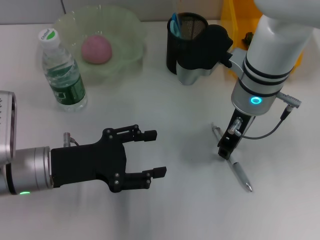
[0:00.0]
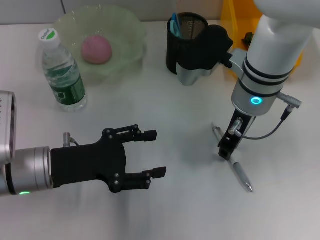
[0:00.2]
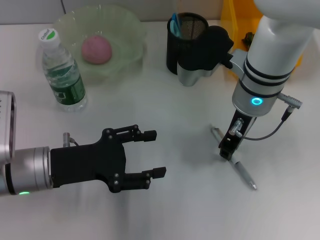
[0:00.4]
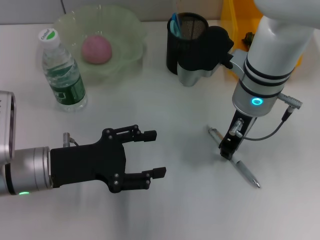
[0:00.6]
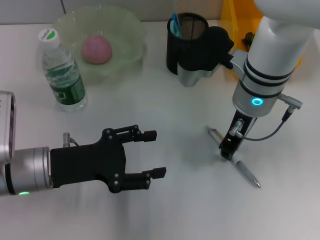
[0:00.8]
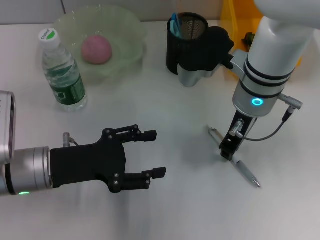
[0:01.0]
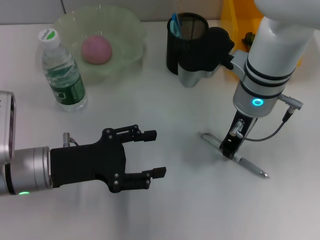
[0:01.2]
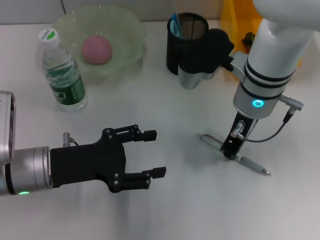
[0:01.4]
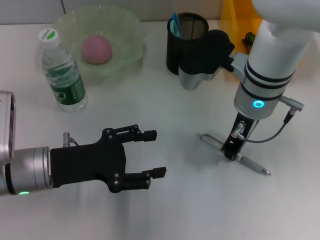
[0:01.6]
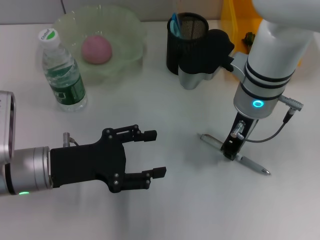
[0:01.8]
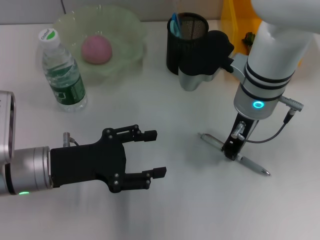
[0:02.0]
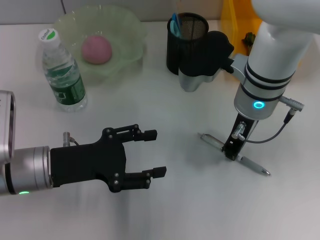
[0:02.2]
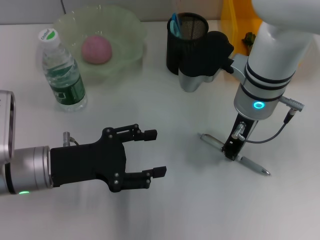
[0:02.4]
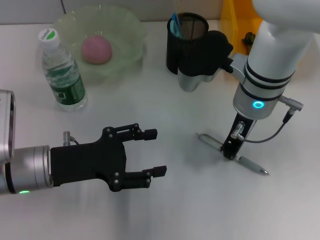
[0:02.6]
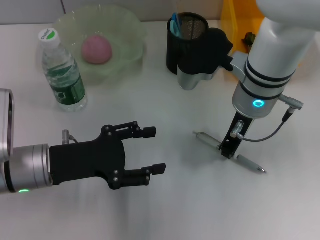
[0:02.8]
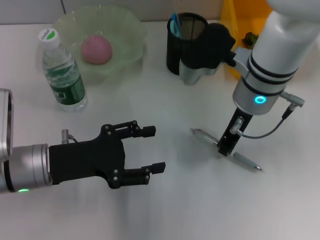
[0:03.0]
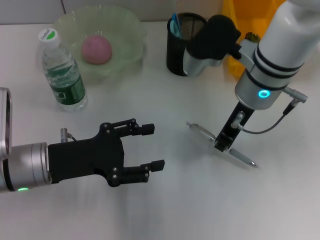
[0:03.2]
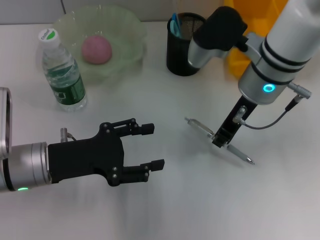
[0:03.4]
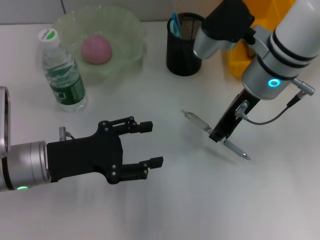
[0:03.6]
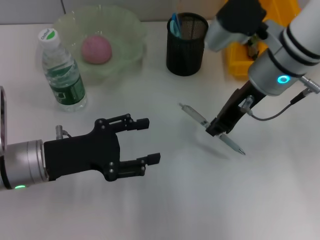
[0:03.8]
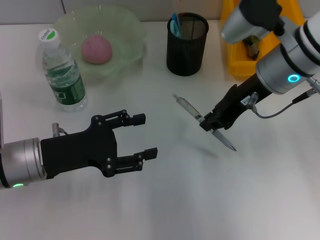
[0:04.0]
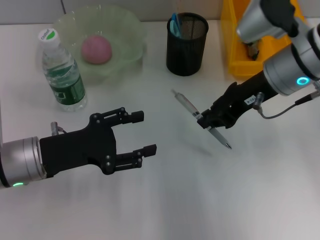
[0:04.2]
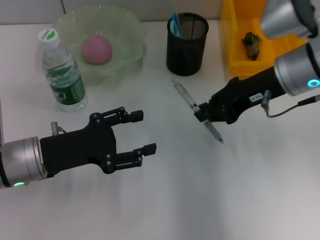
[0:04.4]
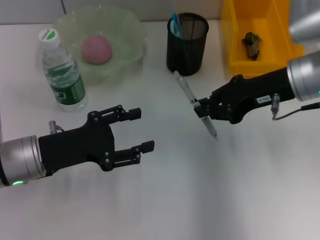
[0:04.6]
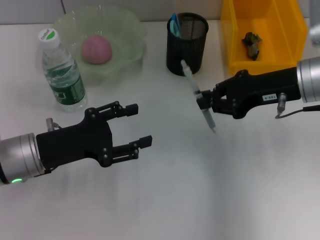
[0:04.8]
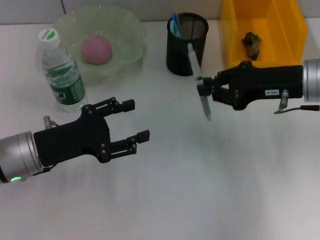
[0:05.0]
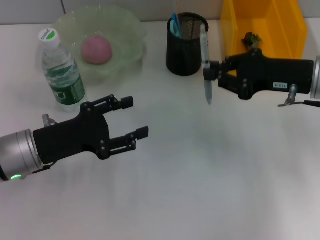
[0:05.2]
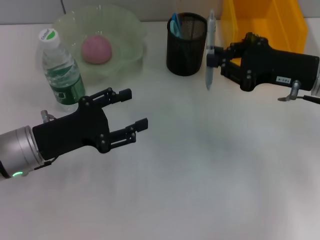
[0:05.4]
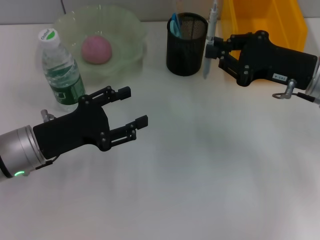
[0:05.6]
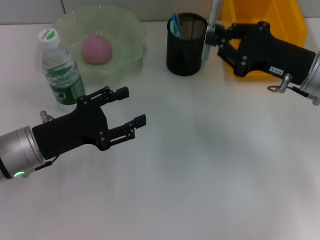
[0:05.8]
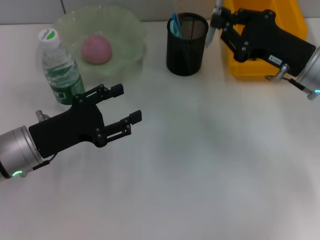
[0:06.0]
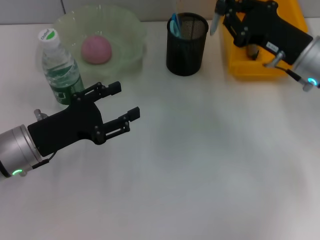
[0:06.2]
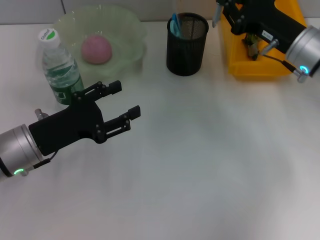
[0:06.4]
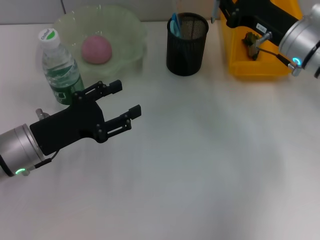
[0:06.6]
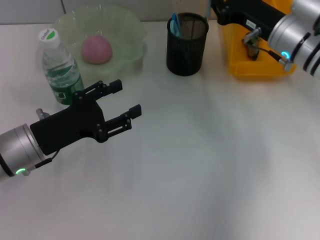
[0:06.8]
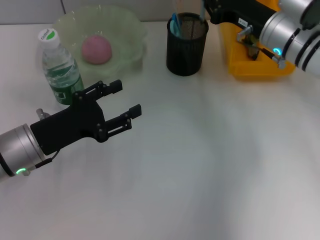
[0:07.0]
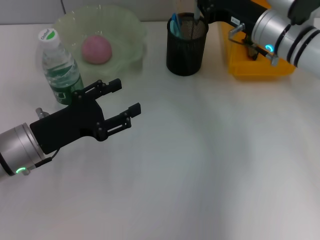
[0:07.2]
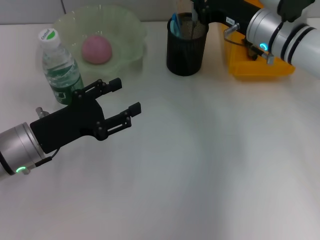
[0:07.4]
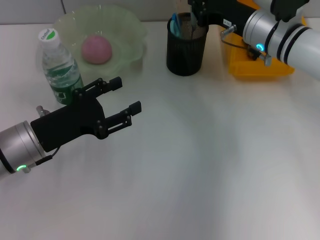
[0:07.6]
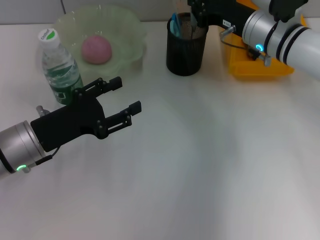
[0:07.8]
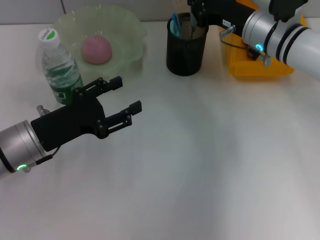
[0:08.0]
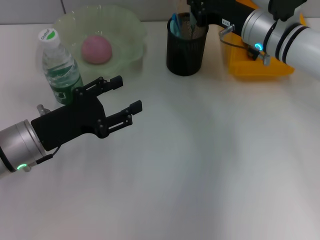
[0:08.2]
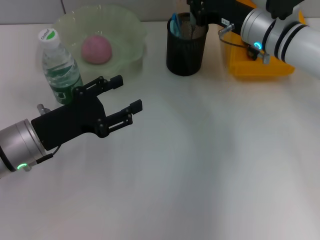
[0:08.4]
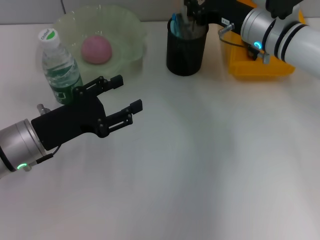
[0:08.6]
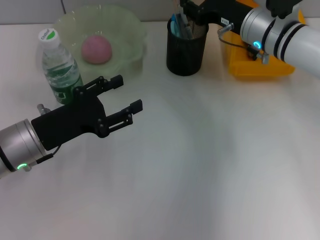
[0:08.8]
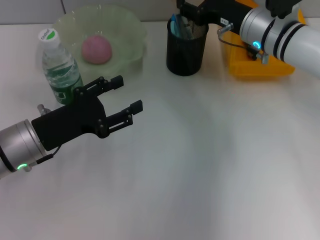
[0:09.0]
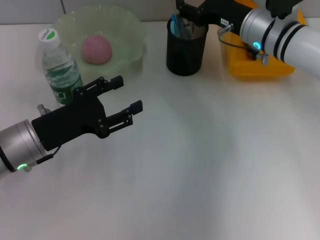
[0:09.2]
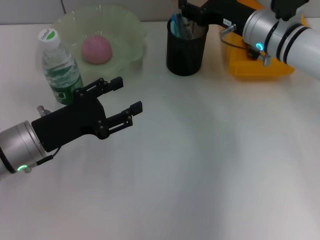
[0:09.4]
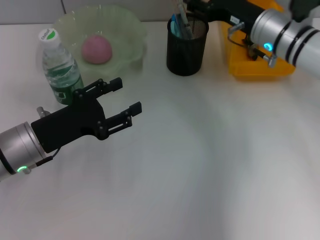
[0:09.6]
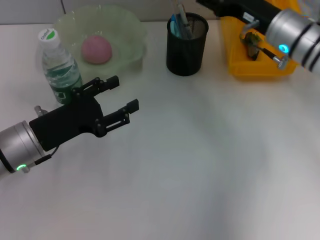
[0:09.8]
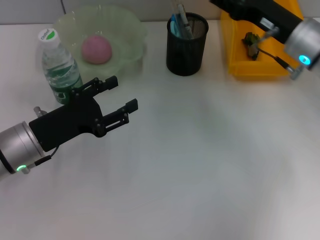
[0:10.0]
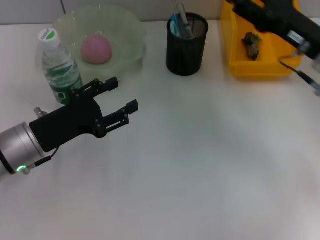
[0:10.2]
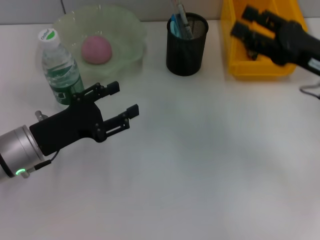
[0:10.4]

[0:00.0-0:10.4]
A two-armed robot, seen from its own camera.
Step, 0:00.2 to 0:08.8: Place the gray spring-action pen into the pen holder with the right hand.
0:00.0 to 0:01.4: The two grippers keep their place.
0:01.4 to 0:03.0: The grippers move only a little.
0:03.0 to 0:04.4: The right gripper travels to the right by about 10 cm.
0:04.4 to 0:06.0: The right gripper moves downward, approximately 5 cm.
0:06.0 to 0:07.4: The right gripper shifts roughly 10 cm forward and to the left.
0:07.4 to 0:09.0: The right gripper opens its fingers.
0:09.0 to 0:10.4: The right gripper moves backward and to the right, some 15 cm.

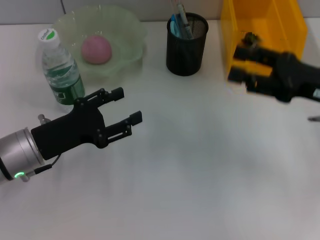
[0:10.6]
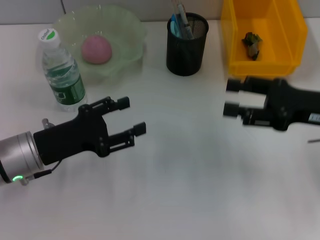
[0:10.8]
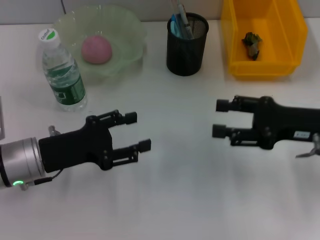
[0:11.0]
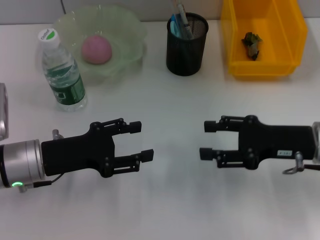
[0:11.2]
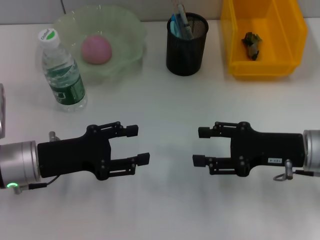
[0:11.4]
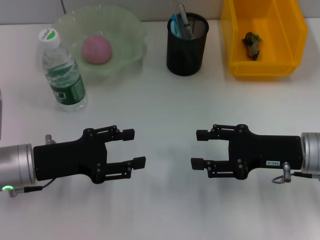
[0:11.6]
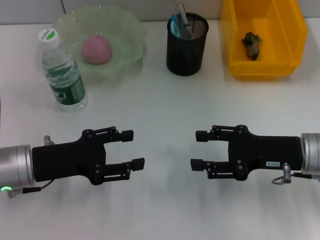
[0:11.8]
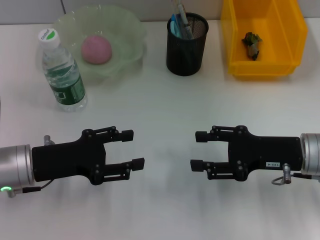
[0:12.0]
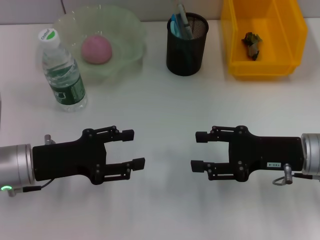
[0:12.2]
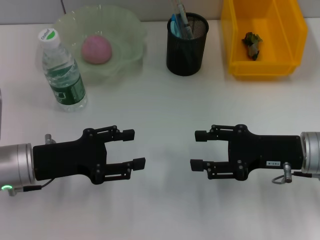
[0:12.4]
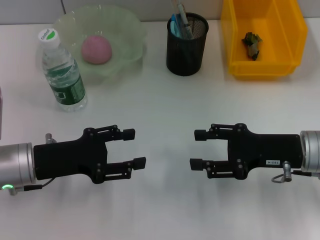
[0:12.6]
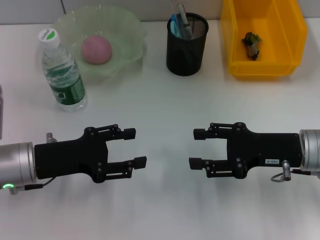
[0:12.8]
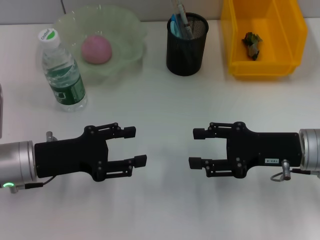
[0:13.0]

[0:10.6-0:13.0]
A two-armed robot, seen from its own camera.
0:10.6 to 0:11.8: The right gripper heads downward, covering approximately 5 cm.
0:11.8 to 0:13.0: The two grippers keep their place.

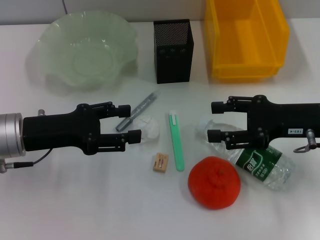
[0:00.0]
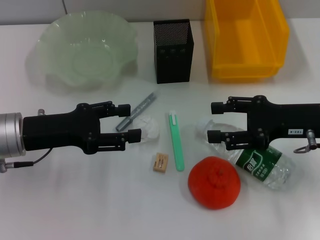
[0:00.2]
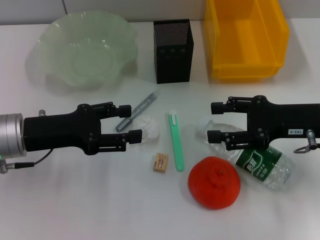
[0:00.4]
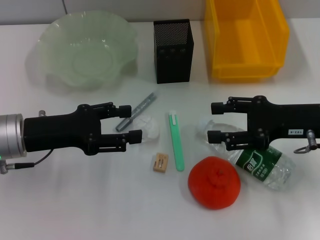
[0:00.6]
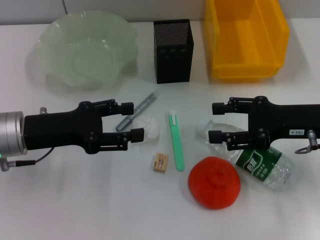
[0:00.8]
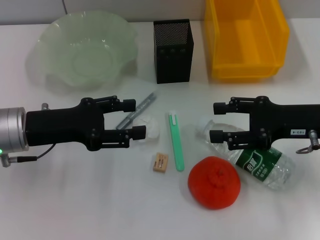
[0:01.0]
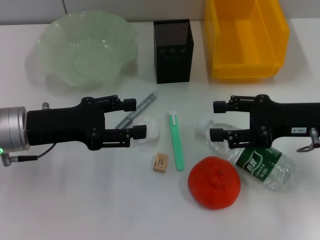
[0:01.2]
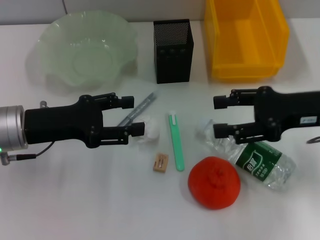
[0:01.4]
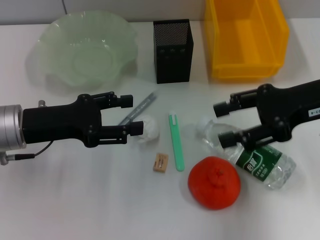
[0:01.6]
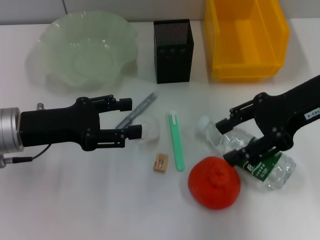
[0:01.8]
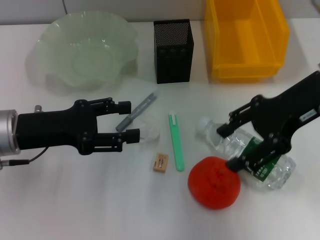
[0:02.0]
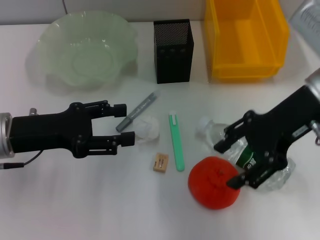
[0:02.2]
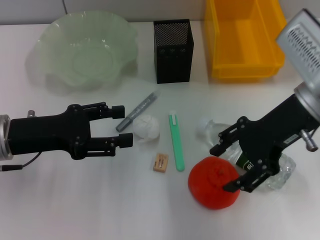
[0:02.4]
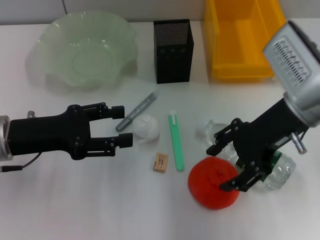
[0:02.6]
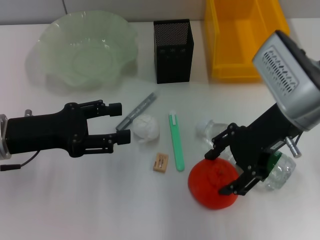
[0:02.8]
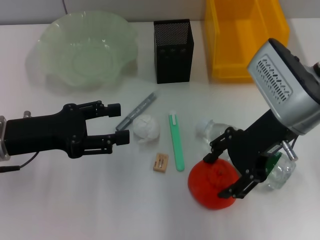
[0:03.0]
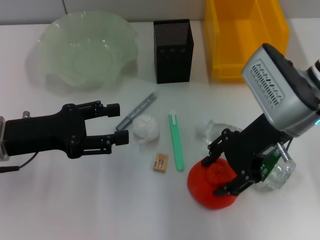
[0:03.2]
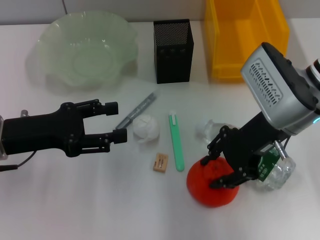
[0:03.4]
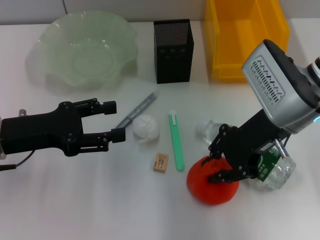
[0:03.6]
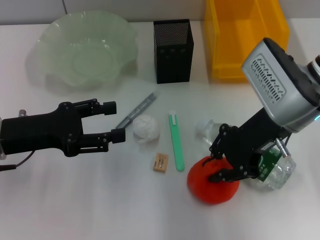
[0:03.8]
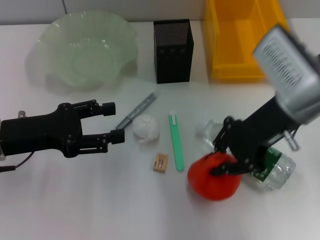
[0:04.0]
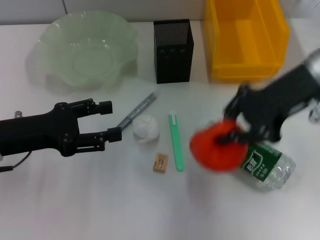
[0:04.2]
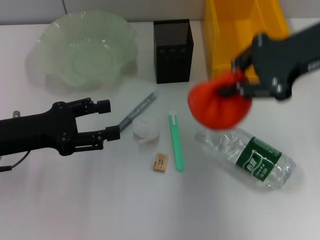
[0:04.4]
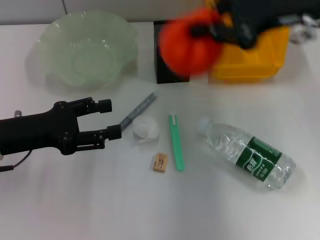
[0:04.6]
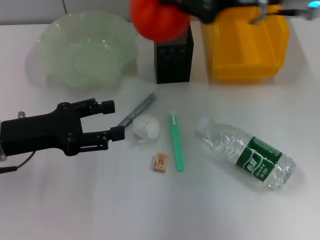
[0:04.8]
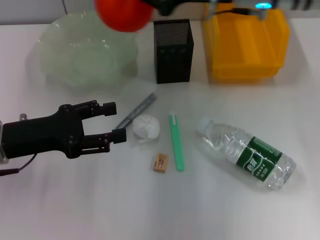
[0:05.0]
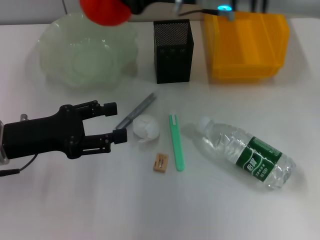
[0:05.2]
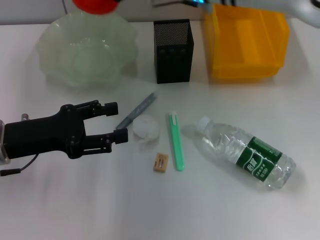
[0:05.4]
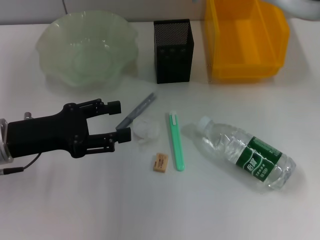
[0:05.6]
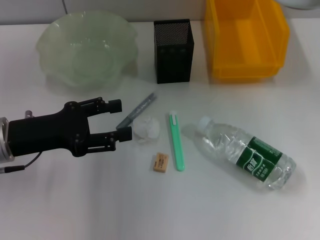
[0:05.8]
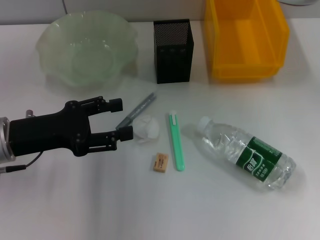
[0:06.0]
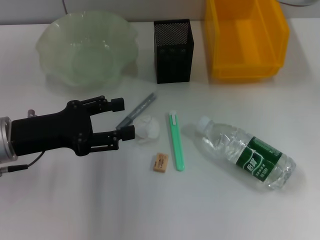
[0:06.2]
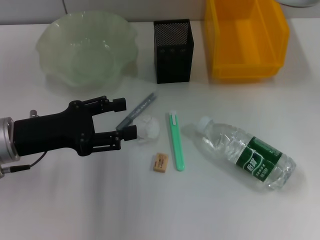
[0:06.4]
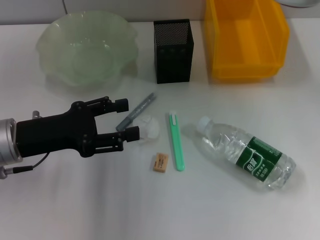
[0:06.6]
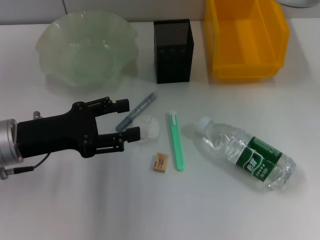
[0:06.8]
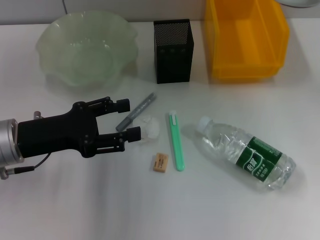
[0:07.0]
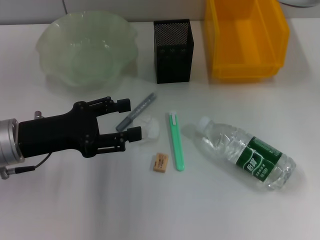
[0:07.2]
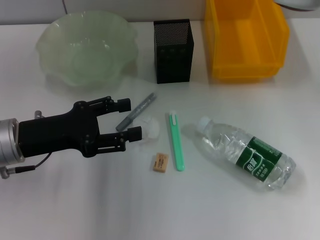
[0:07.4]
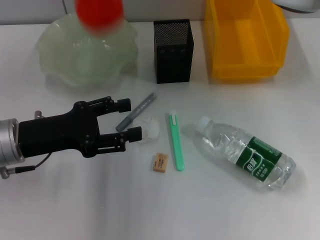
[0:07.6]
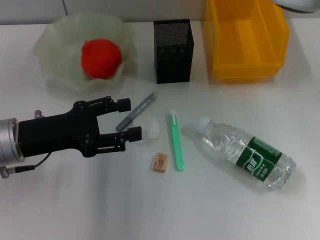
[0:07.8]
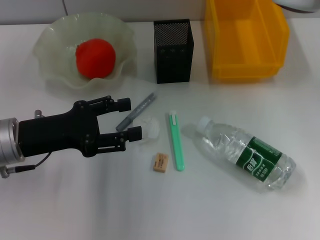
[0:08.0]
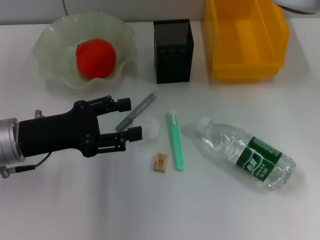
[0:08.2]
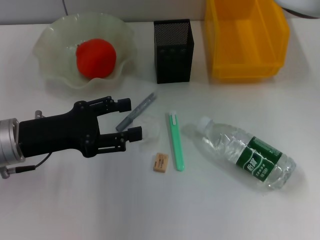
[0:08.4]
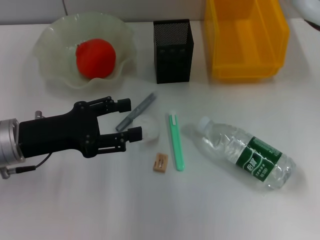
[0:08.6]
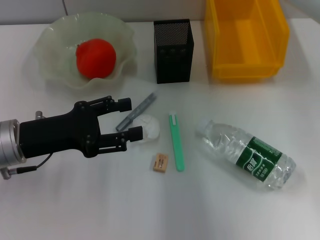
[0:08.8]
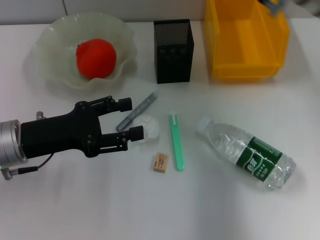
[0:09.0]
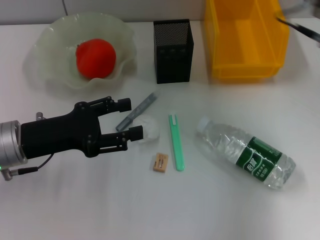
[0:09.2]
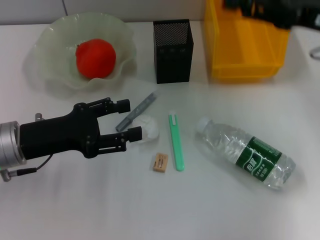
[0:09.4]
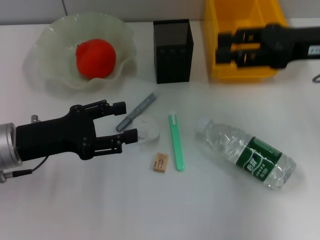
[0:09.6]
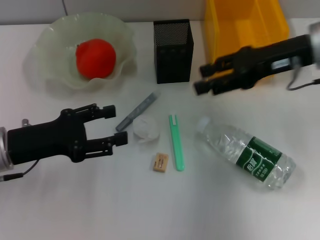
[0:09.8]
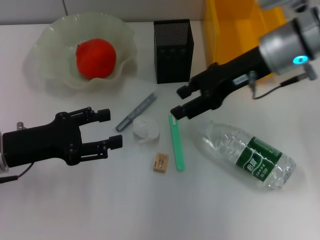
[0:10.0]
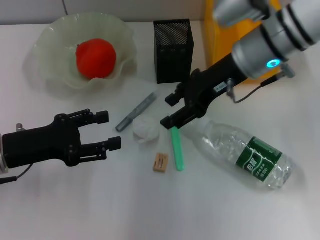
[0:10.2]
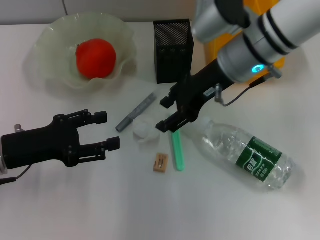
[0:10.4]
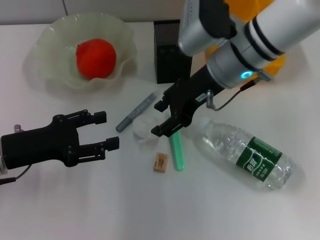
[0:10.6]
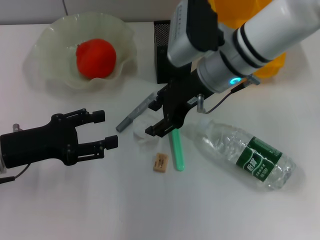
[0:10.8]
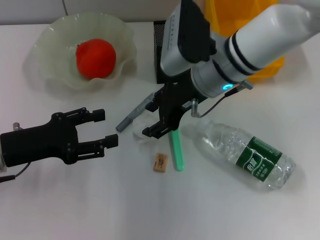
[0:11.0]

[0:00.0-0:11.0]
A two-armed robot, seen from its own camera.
Step, 0:00.0 to 0:03.4: Grab the orange with the right hand.
Step, 0:03.6 to 0:07.8: Place the orange into the fruit bowl with the right hand.
0:00.0 to 0:01.6: The right gripper is displaced upward by about 5 cm.
0:01.6 to 0:03.2: The right gripper goes some 10 cm to the left.
0:03.2 to 0:04.8: The right gripper goes about 10 cm upward and forward, and closes up.
0:04.8 to 0:06.2: The right gripper travels to the left and forward by approximately 15 cm.
0:06.2 to 0:07.8: The right gripper opens.
0:07.8 to 0:09.4: The right gripper goes about 25 cm to the right and backward.
0:09.4 to 0:11.0: The right gripper moves to the left, about 20 cm.
